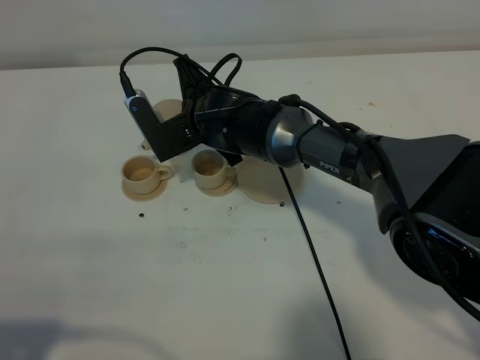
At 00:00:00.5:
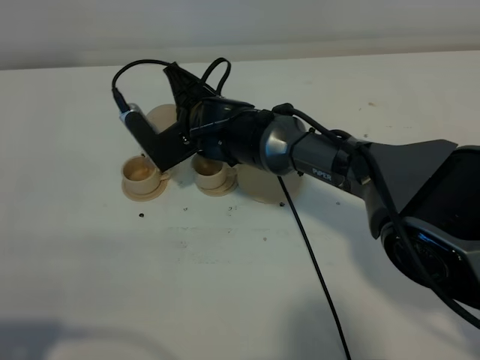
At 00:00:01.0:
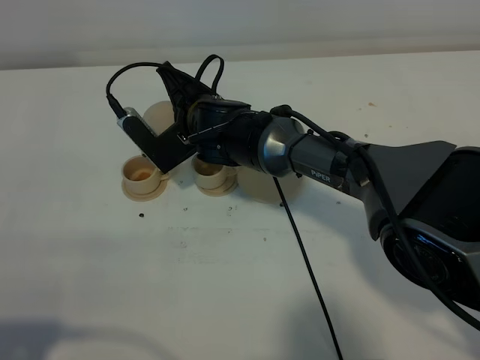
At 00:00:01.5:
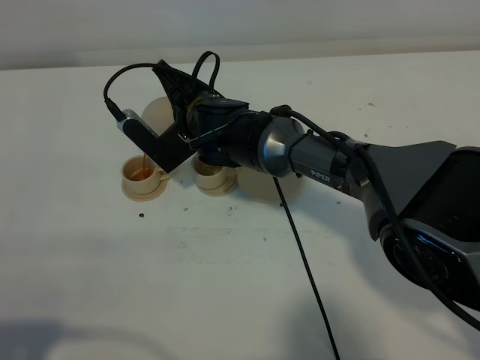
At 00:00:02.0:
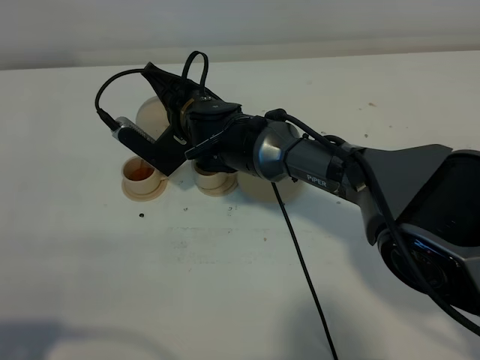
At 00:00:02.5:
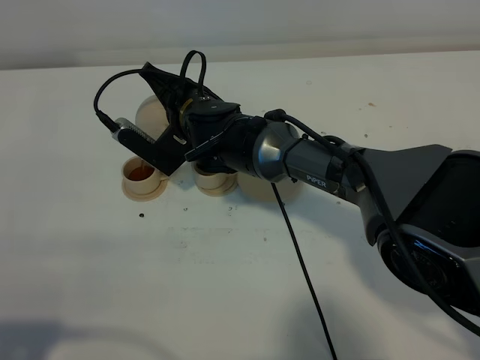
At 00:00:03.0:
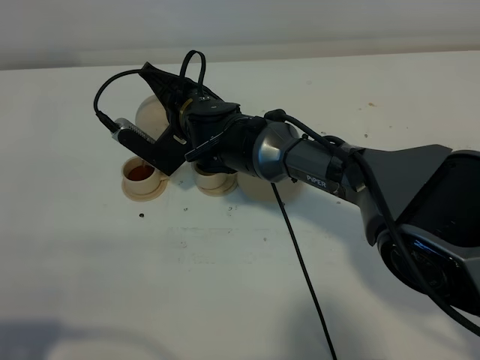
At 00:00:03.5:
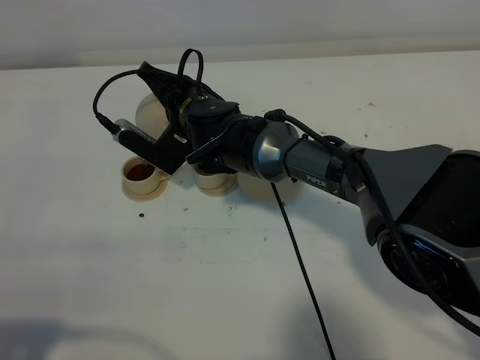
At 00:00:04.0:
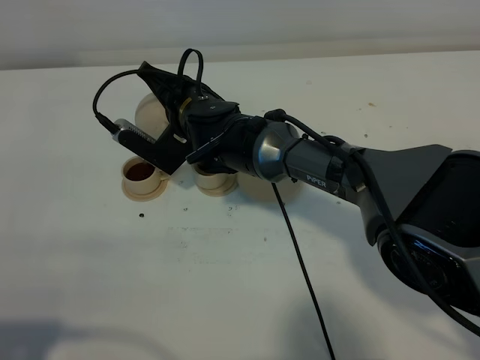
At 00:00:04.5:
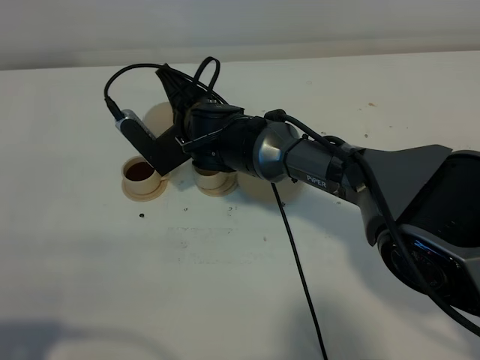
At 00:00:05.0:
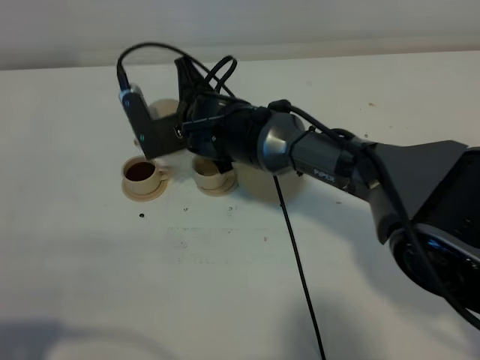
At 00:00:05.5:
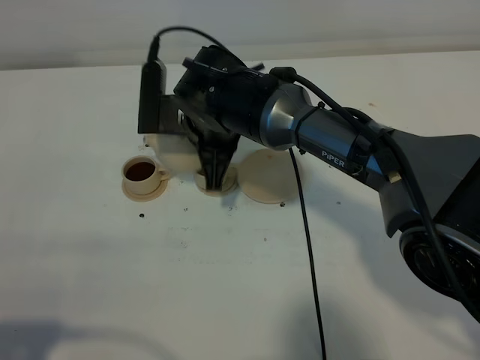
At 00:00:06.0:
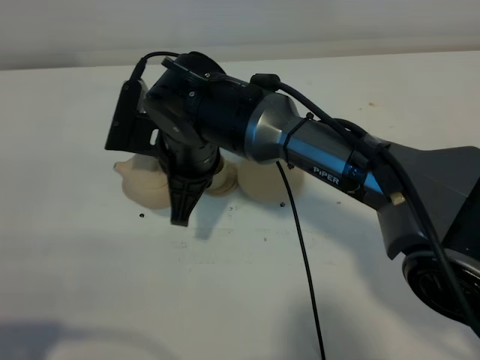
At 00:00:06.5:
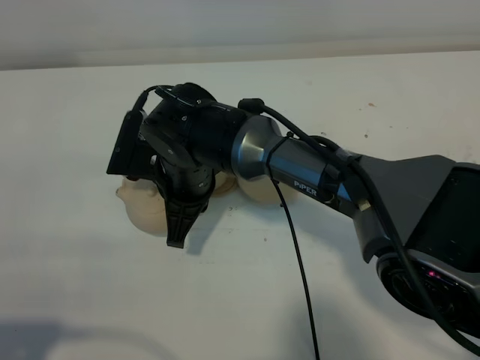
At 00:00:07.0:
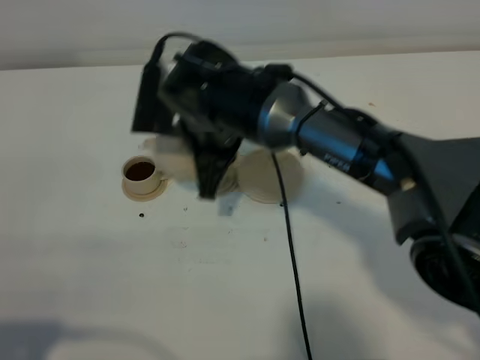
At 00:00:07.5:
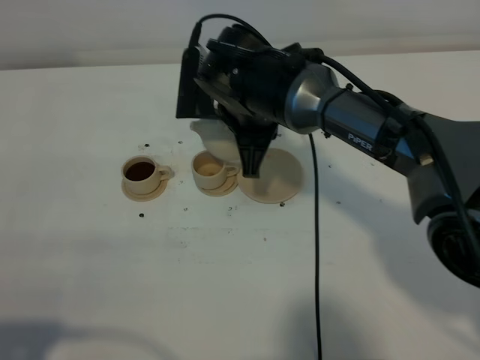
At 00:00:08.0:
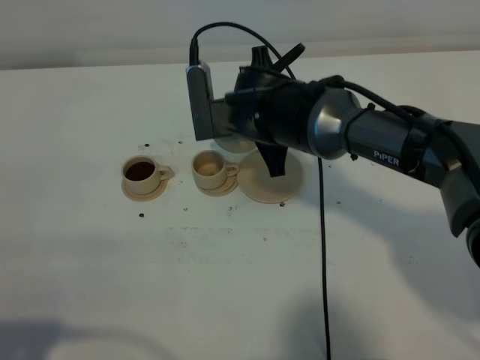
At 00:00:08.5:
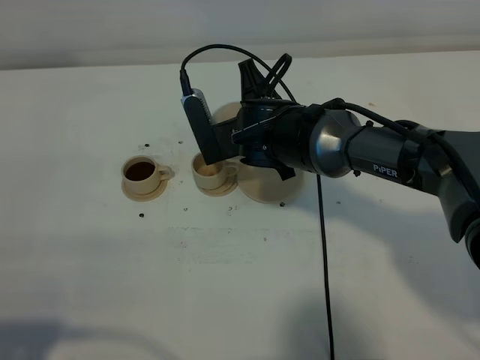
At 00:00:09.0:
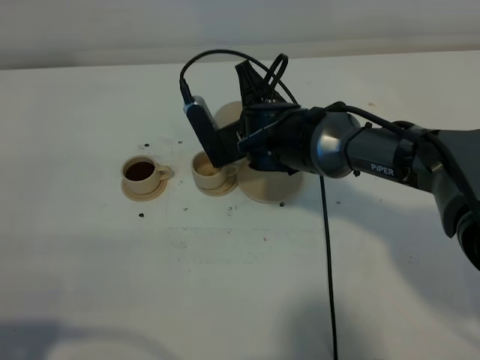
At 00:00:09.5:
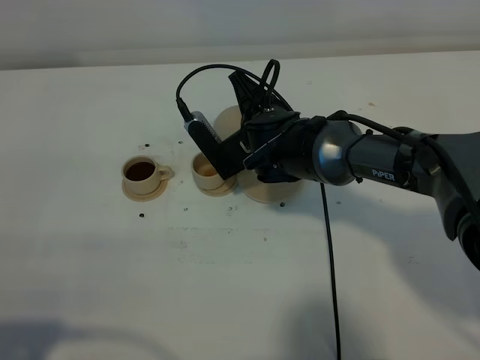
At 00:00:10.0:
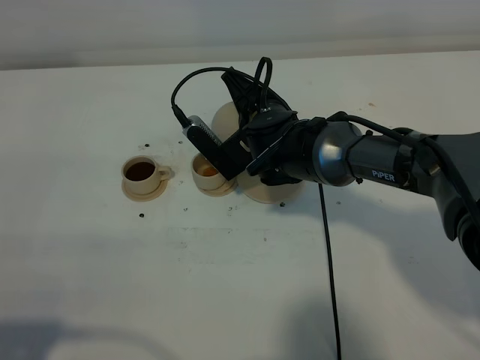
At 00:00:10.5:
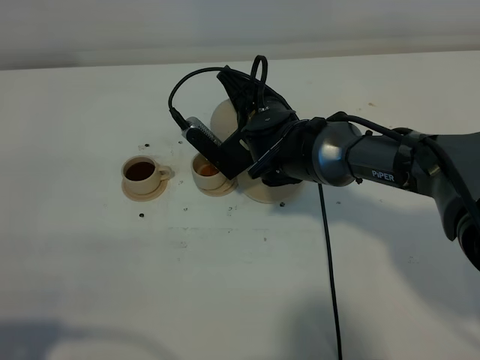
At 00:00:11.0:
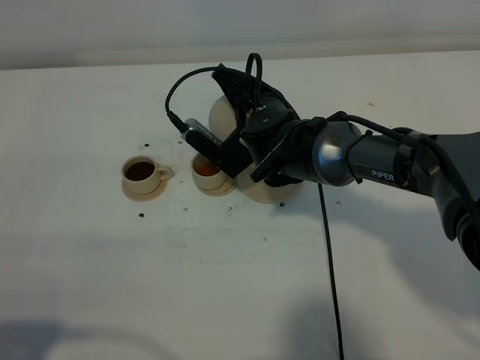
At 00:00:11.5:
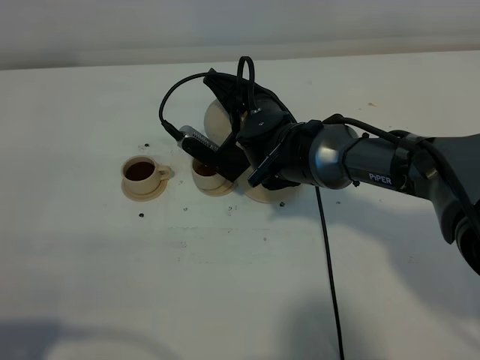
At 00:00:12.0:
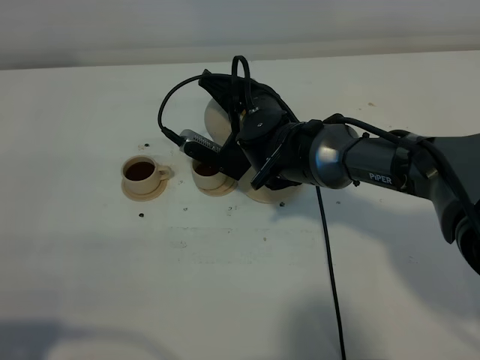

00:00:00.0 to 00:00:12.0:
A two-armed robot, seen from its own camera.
Task of the whole recording: grasp the brown teapot and pour the tea into the two brown teacups one by one, put the brown teapot back in its original place.
00:00:02.0 to 00:00:04.0: The grippers move only a little.
00:00:04.0 to 00:00:06.0: The right gripper shifts about 10 cm backward.
00:00:06.0 to 00:00:08.0: The right gripper travels to the right and forward by roughly 10 cm.
00:00:10.0 to 00:00:12.0: There are only small adjustments of the grippers.

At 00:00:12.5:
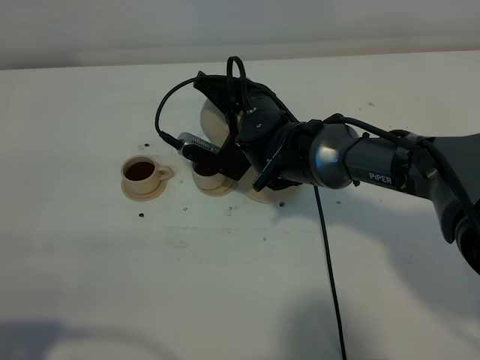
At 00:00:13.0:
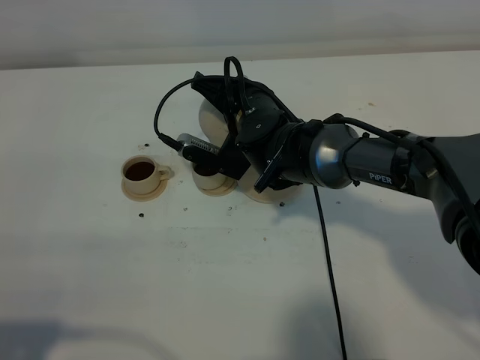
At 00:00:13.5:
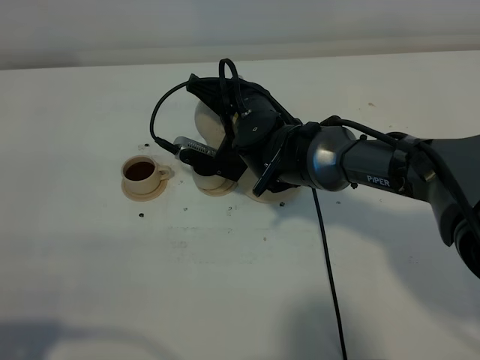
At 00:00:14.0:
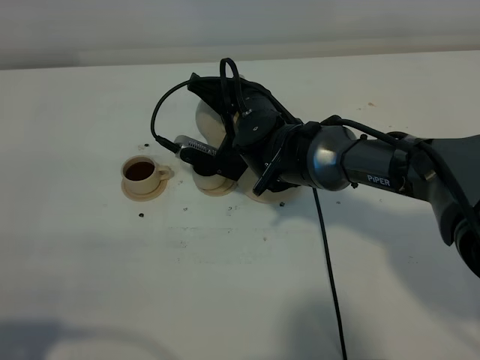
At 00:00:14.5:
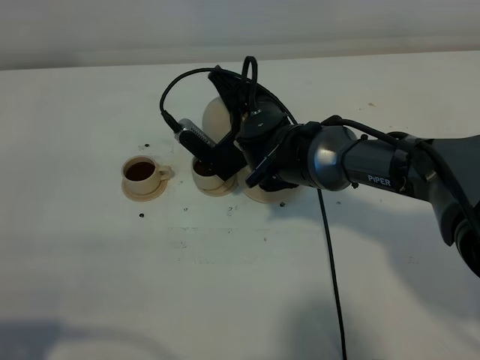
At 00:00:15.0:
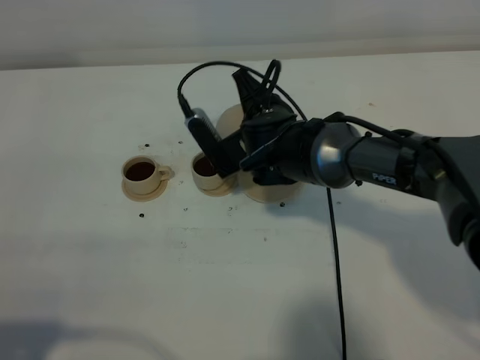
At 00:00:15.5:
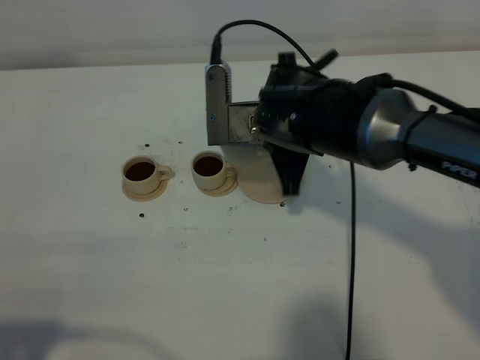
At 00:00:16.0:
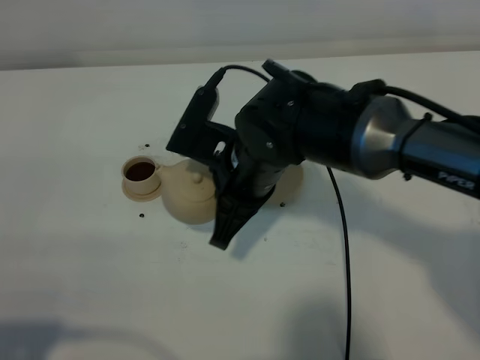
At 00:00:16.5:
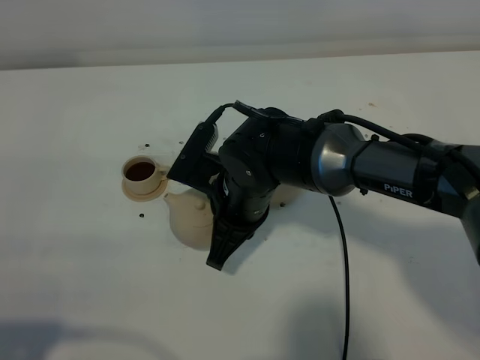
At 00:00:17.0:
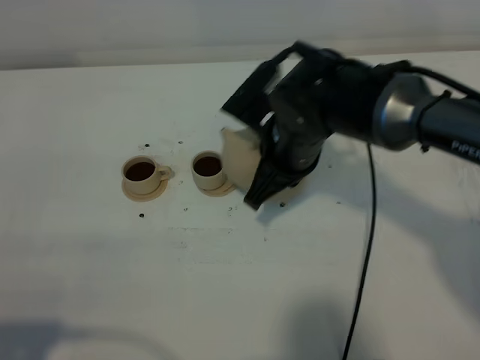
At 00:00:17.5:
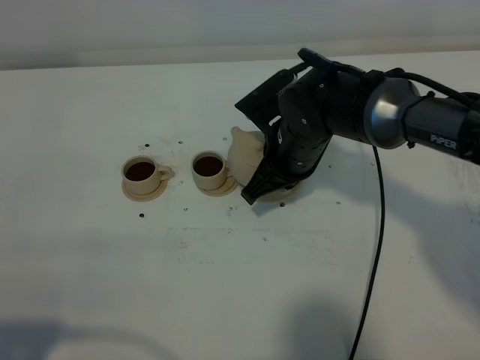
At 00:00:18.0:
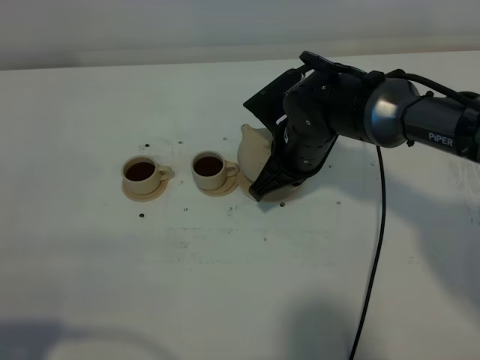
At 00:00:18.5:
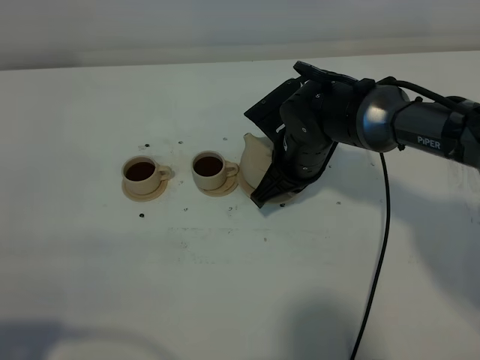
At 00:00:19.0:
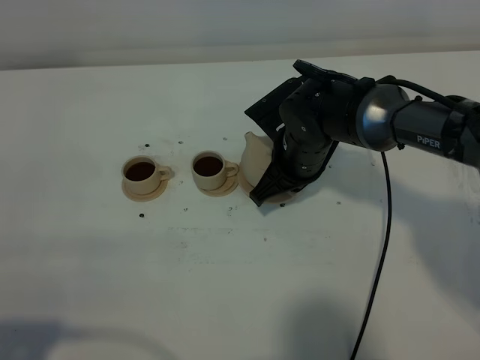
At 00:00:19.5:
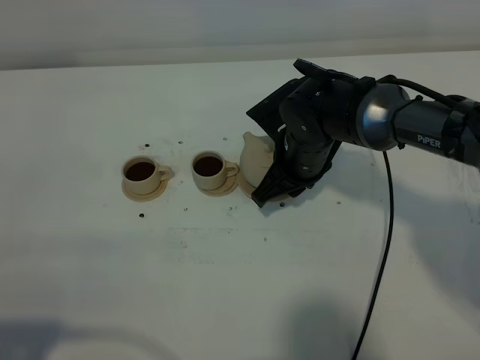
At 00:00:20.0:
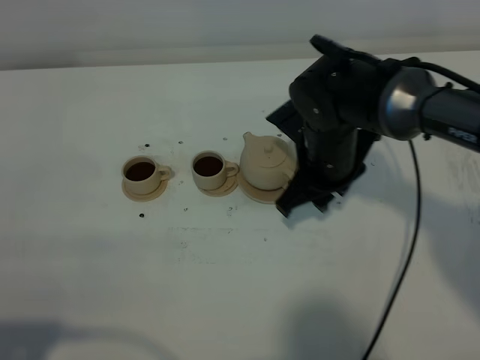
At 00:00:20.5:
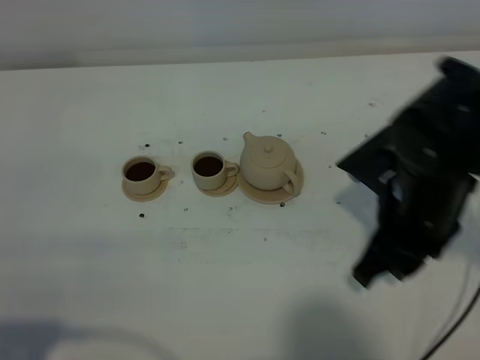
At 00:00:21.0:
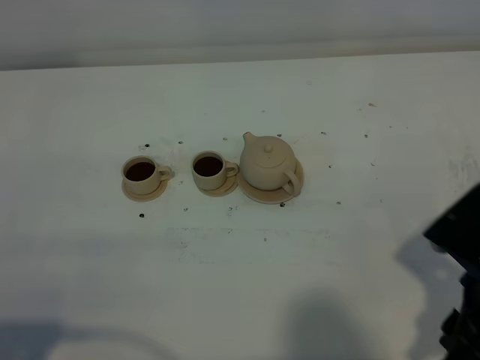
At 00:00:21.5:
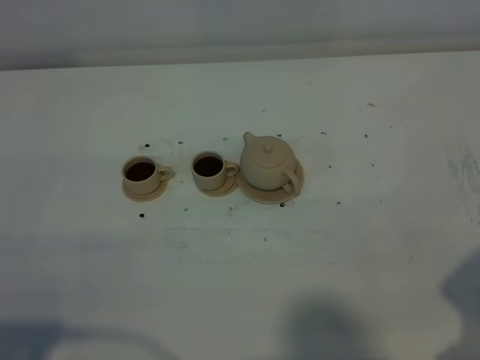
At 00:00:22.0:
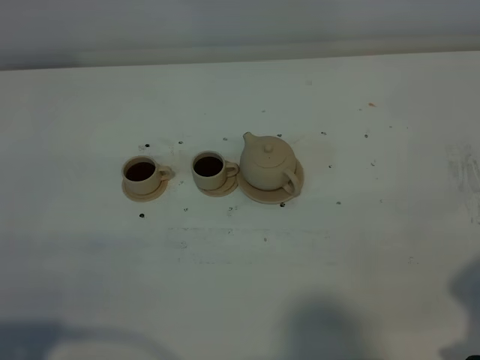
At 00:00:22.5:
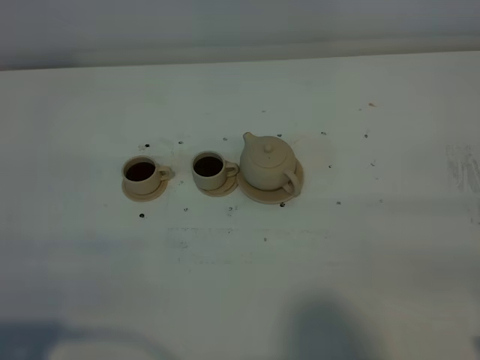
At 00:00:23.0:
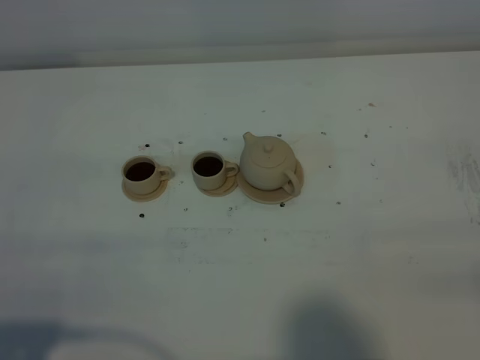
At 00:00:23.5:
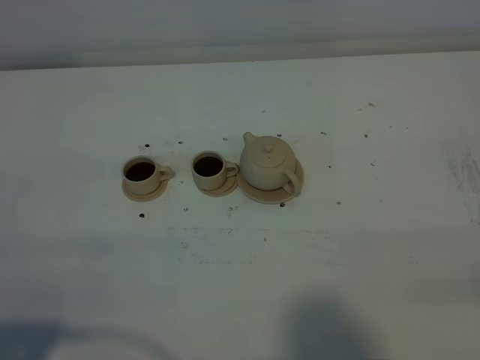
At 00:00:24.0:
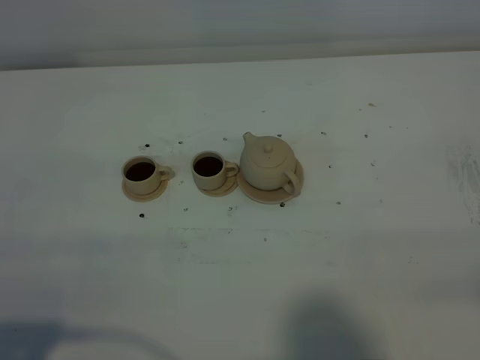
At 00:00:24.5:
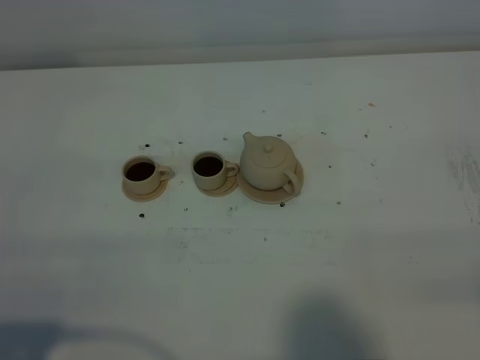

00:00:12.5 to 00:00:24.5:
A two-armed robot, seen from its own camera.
Task of the whole recording: grasp the brown teapot and pour the tea into the two brown teacups one by one, put the brown teapot back in its original place.
Step, 00:00:12.5 to 00:00:14.5: Pour tea into the teacup with the right gripper.
00:00:12.5 to 00:00:14.5: The grippers make only small movements.
00:00:14.5 to 00:00:16.5: The right gripper moves backward, approximately 10 cm.
00:00:16.5 to 00:00:18.5: The right gripper heads forward and to the right, covering some 10 cm.
00:00:18.5 to 00:00:20.5: The right gripper goes some 20 cm backward, to the right and upward, and opens its fingers.
00:00:20.5 to 00:00:22.5: The right gripper shifts approximately 20 cm backward and to the right.

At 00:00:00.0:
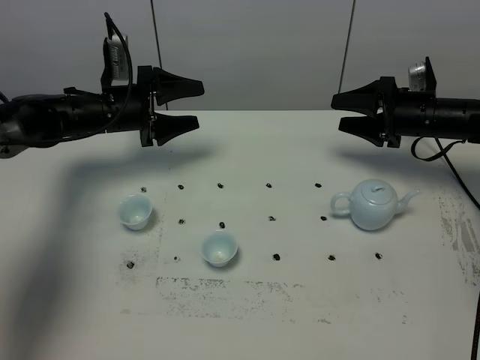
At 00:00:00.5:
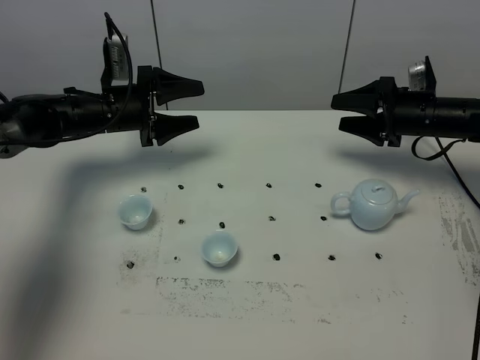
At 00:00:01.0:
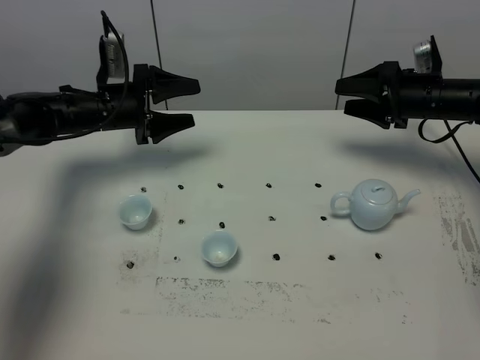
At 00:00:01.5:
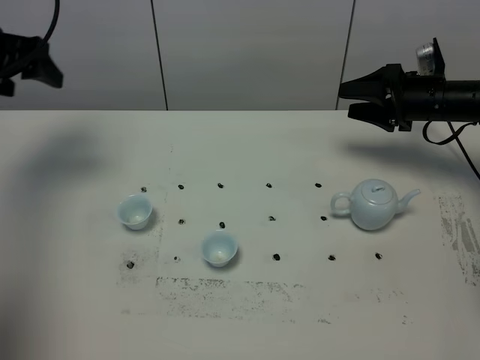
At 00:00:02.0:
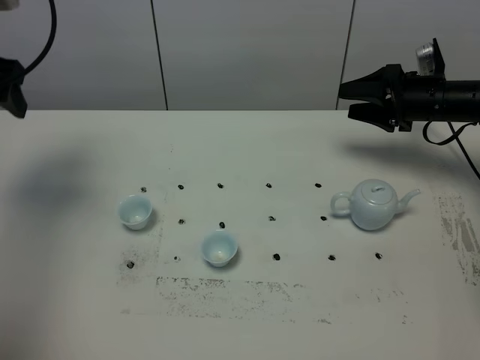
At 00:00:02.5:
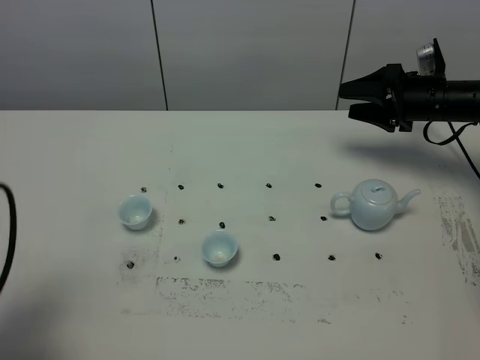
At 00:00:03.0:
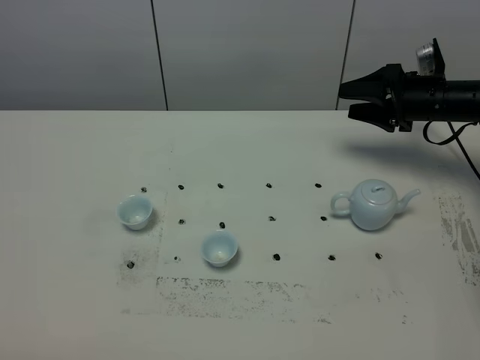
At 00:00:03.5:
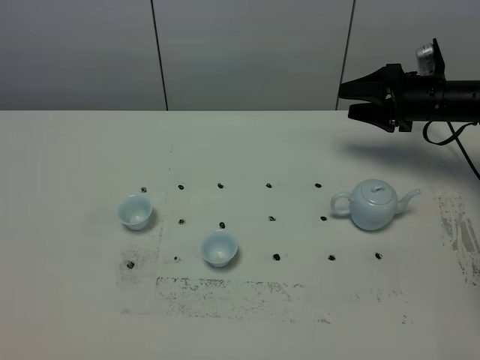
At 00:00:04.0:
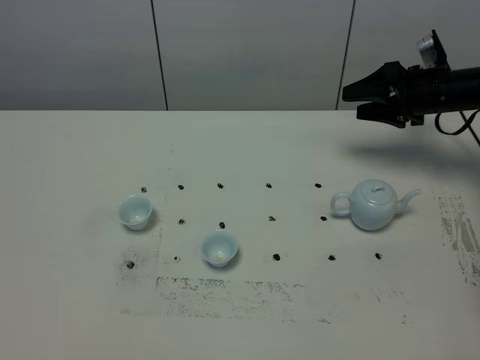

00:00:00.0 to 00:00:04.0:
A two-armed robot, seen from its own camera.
Task of the whole recording: grasp the blue porcelain teapot and pour the tea into the two blue porcelain teacups one by one, put the blue porcelain teapot back in its original place.
00:00:00.0 to 00:00:02.0: The left gripper is displaced upward, backward and to the left by some 25 cm.
00:00:02.0 to 00:00:04.0: The left gripper is displaced backward by approximately 40 cm.
